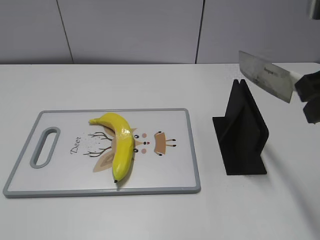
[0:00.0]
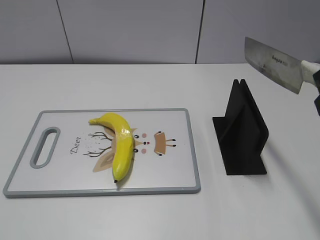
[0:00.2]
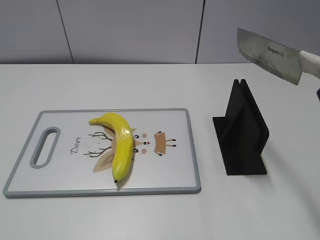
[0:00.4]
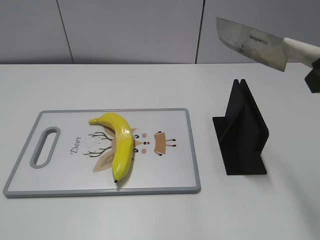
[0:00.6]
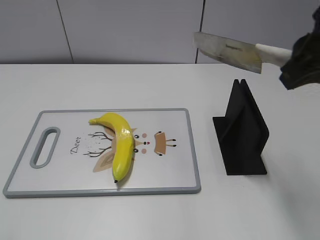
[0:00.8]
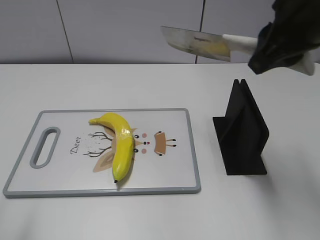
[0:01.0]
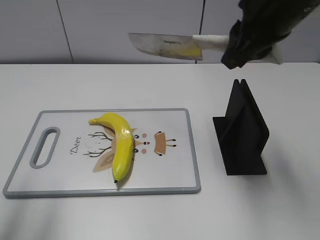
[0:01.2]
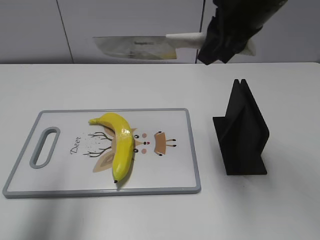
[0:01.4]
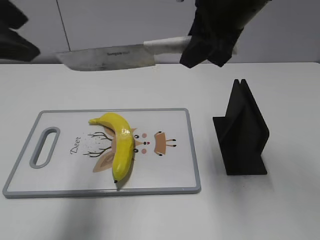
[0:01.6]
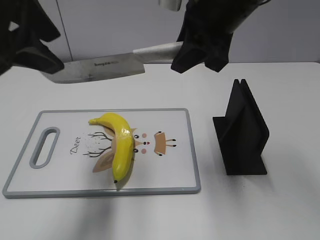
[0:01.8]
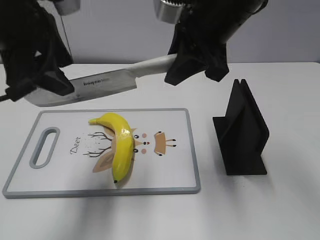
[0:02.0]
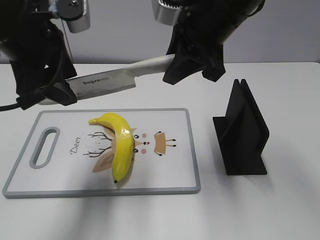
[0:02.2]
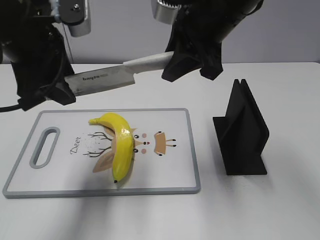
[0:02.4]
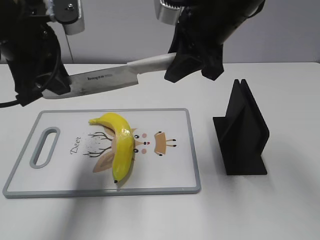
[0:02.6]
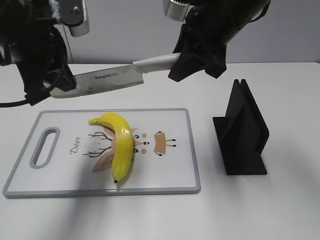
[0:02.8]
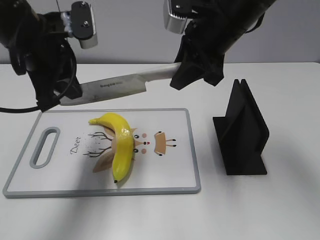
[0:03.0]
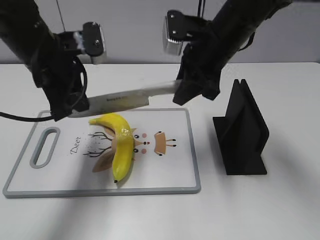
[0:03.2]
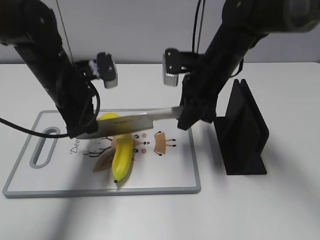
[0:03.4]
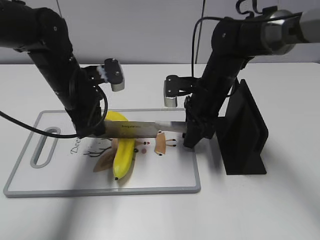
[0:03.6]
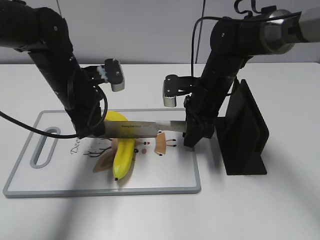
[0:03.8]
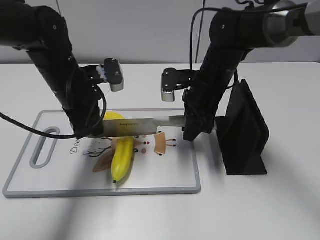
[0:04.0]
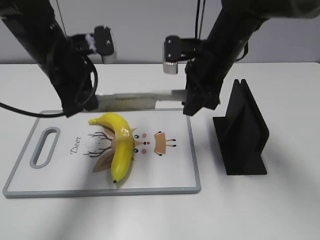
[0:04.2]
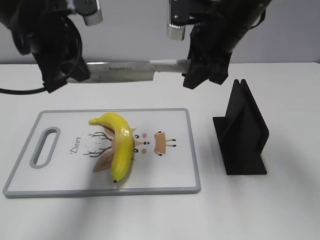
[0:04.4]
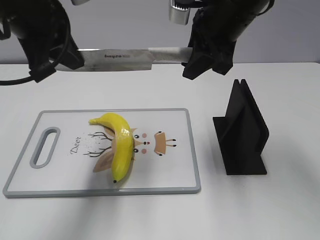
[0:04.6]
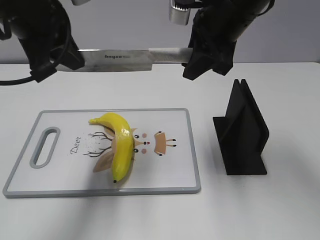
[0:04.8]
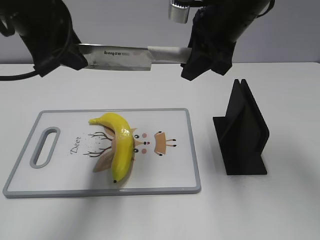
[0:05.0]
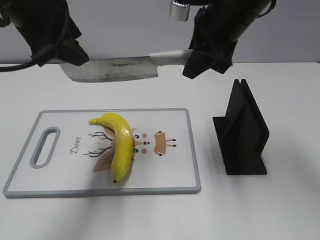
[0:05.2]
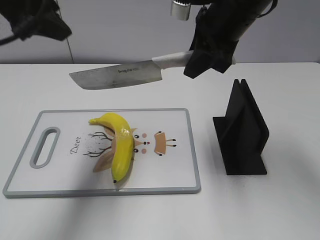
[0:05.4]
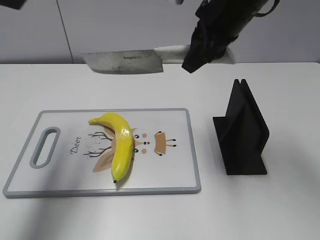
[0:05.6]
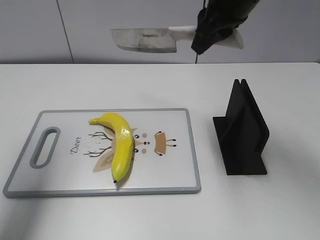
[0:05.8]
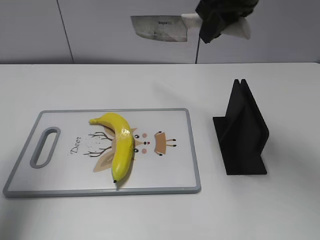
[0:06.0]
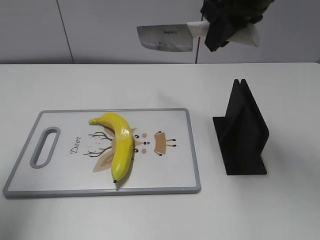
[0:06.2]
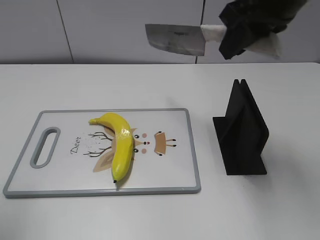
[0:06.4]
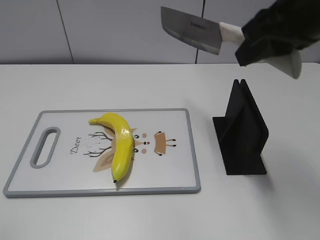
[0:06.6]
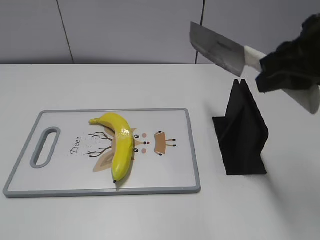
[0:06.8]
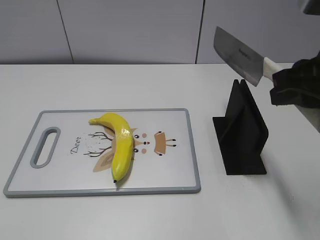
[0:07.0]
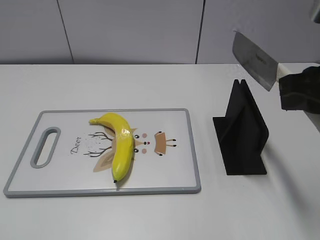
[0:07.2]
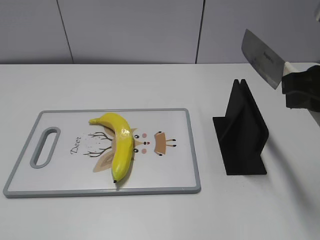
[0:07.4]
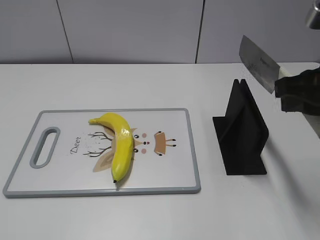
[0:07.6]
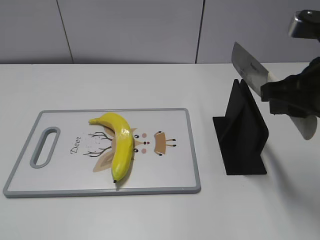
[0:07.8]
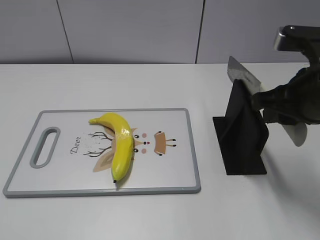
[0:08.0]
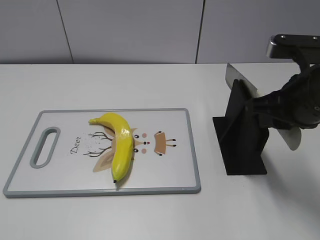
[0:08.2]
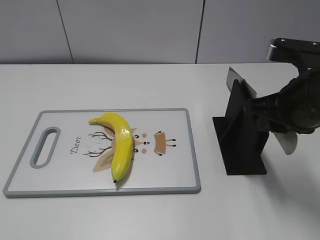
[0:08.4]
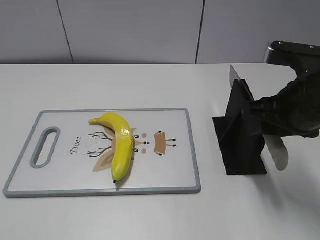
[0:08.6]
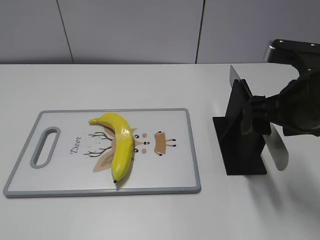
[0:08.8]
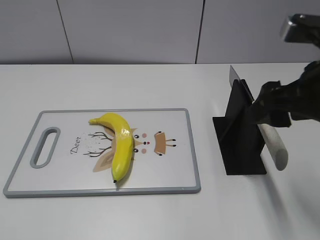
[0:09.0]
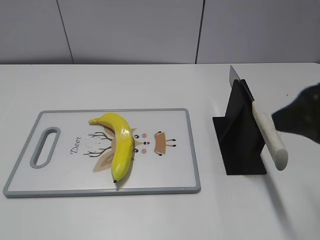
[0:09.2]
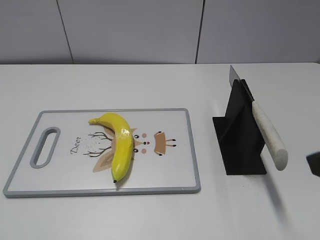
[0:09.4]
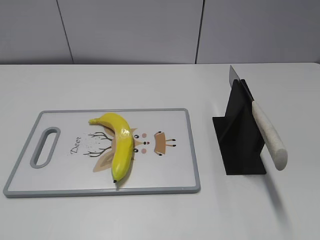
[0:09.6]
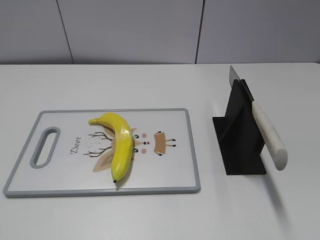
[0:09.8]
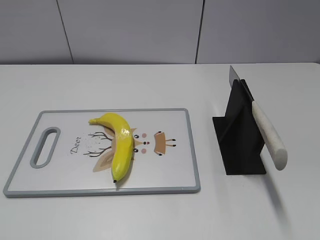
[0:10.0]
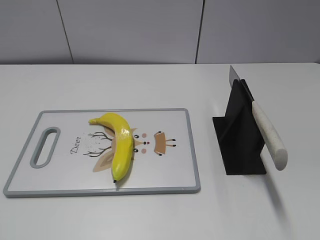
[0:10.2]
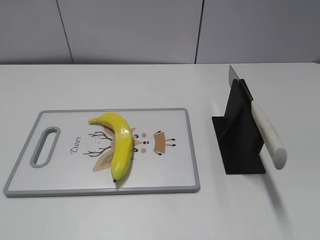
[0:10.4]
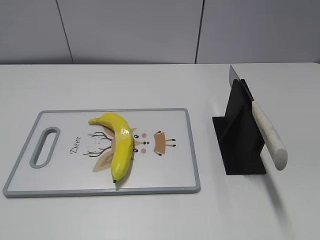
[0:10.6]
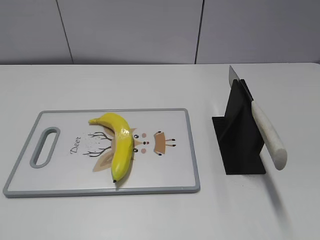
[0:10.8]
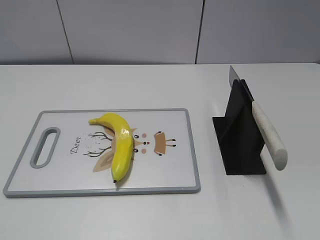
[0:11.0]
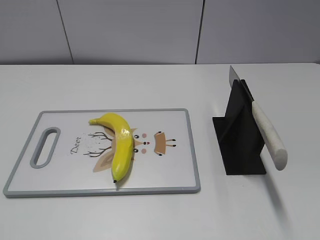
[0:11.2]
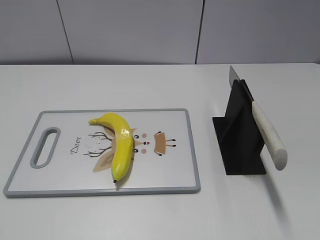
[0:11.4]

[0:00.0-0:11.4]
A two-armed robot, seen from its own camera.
Task of the whole recording: cut plastic banana.
Step, 0:00.2 to 0:04.6: Lift the knife with your right hand.
Step, 0:04.8 to 0:06.2: Cut the banana with your right hand.
Step, 0:06.4 to 0:07.4: Lift the knife with your right hand.
Step, 0:07.6 to 0:11.4: Place the knife on the storage rack with your right hand.
0:00.0 to 0:01.4: The right gripper goes some 15 cm forward and to the left, while the left gripper shifts some 20 cm forward and upward, and opens.
0:01.4 to 0:02.8: The left gripper is displaced forward, to the right and downward by some 15 cm, and closes up. Meanwhile the right gripper ends up roughly 5 cm from where it was.
0:02.8 to 0:04.2: The grippers both shift downward by roughly 10 cm.
0:04.2 to 0:05.6: The right gripper moves upward, about 10 cm. Meanwhile the left gripper travels upward and to the left by approximately 20 cm, and opens up.
0:05.6 to 0:07.2: The right gripper travels backward and to the right by some 20 cm. The left gripper is displaced backward by roughly 30 cm.
0:07.2 to 0:08.6: The right gripper shifts roughly 5 cm downward.
0:08.6 to 0:10.0: The right gripper travels backward and to the right by about 25 cm, and opens up.
